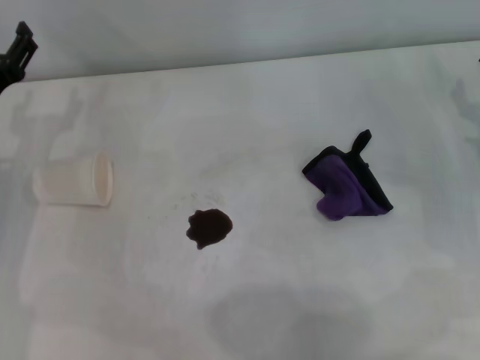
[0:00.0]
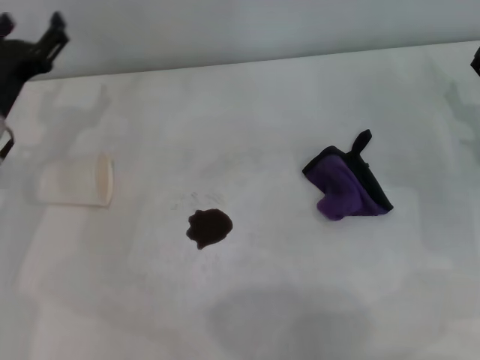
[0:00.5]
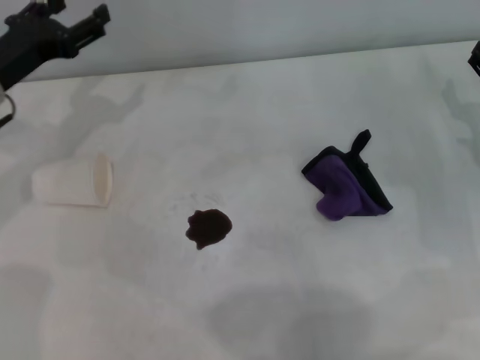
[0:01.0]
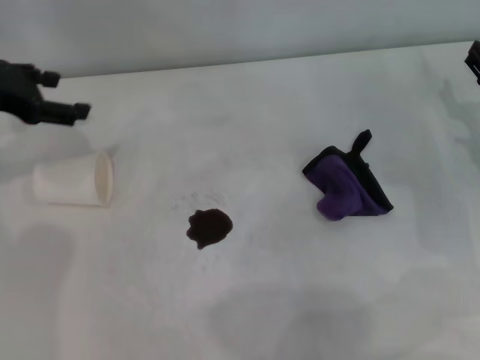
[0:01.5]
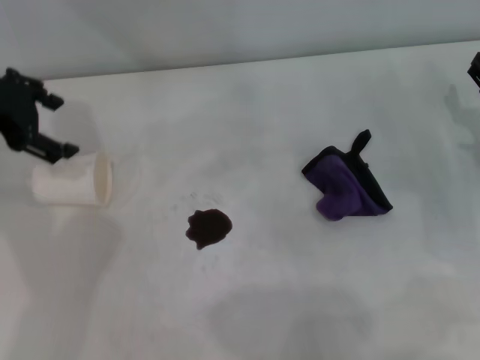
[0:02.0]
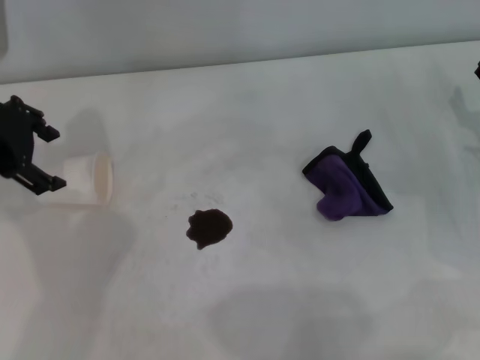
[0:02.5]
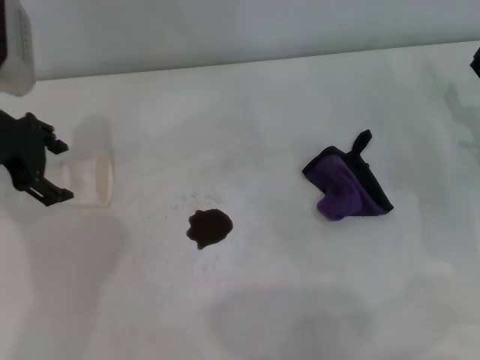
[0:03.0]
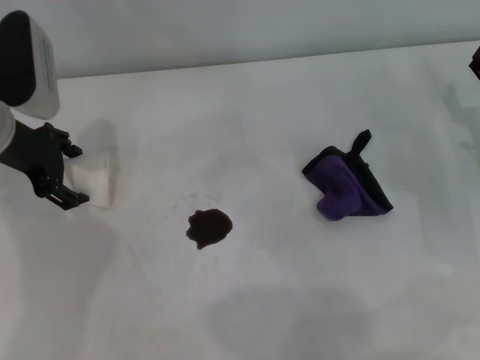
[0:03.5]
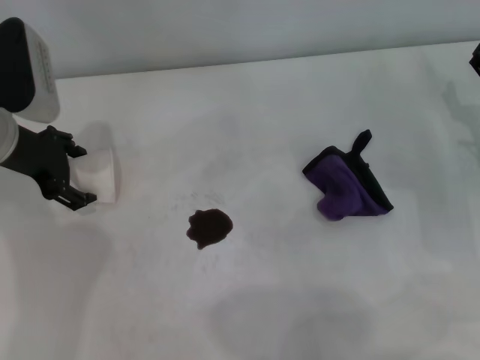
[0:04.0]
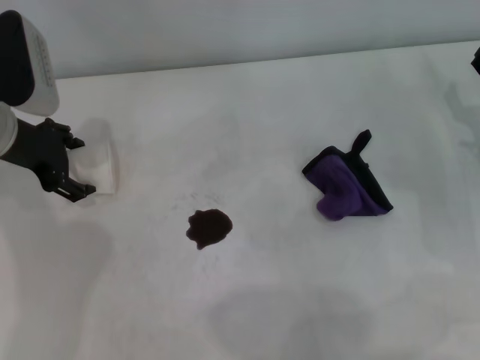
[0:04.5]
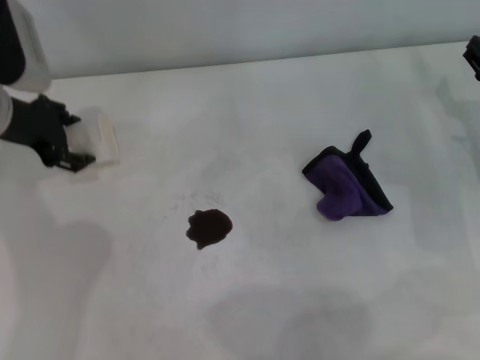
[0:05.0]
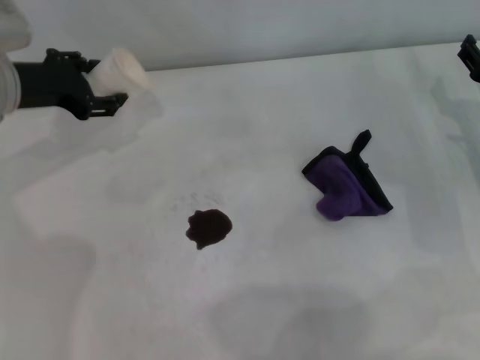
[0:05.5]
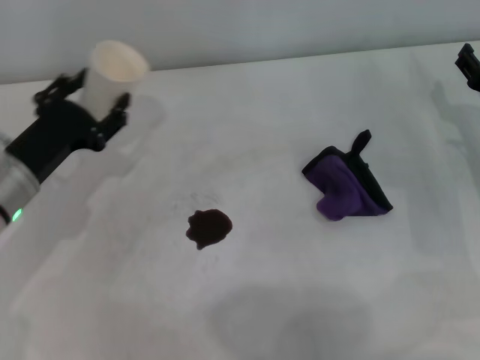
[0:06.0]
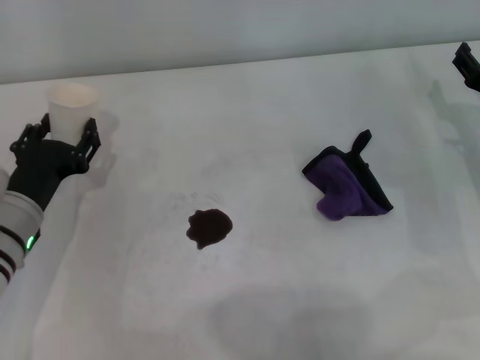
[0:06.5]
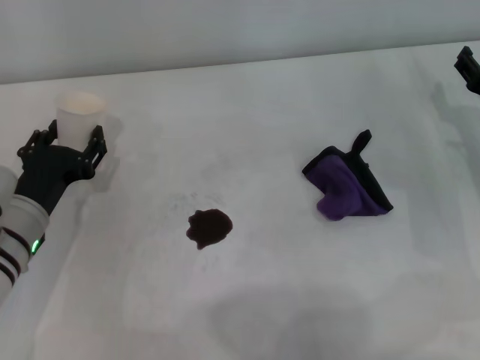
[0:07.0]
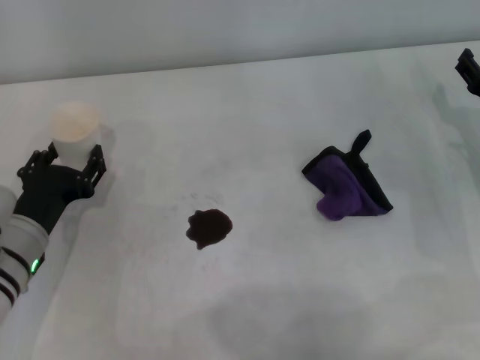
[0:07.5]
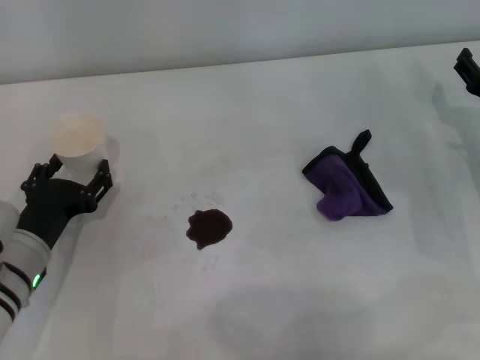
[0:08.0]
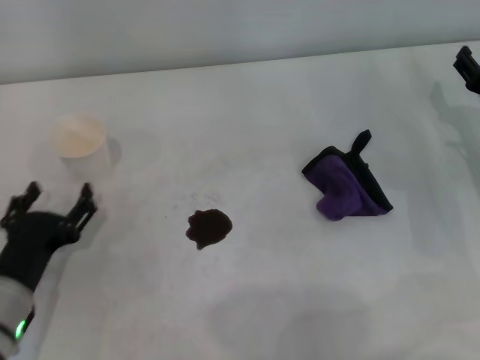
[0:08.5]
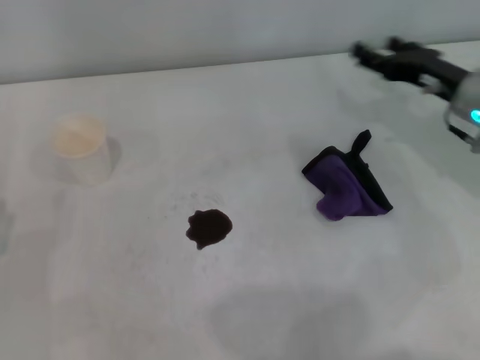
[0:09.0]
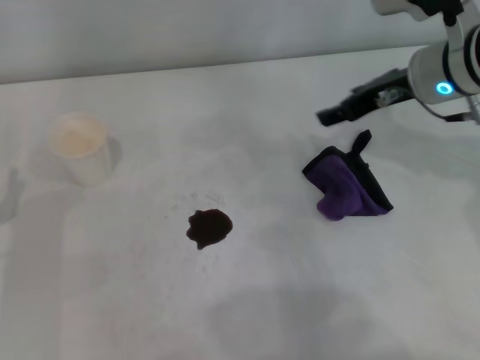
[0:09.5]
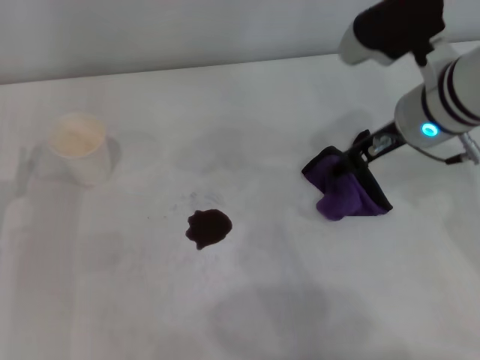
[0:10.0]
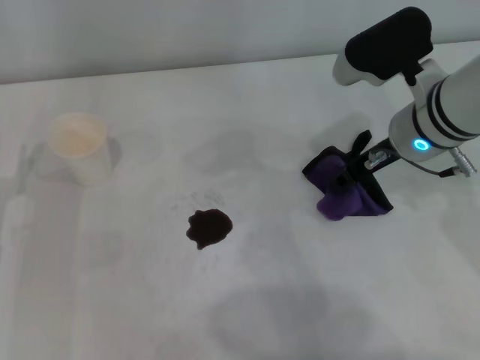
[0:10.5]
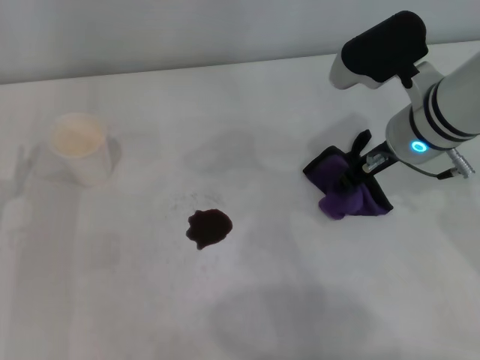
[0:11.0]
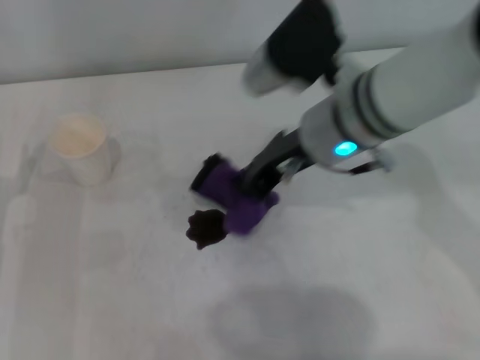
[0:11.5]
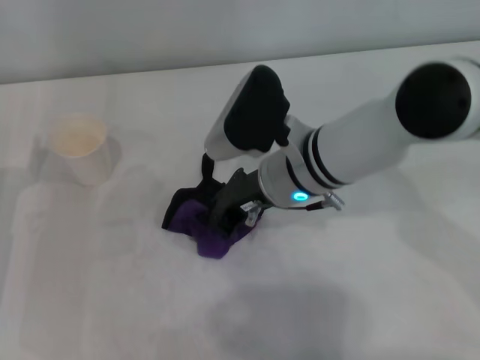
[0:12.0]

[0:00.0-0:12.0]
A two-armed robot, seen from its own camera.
Step, 0:00.0 to 0:03.5: Grasp the paper cup with the left gripper.
Step, 0:04.0 to 0:08.0: Stand the paper cup upright with the left gripper.
Step, 0:08.5 to 0:10.5: Grasp the rag with the right gripper.
0:00.0 to 0:02.0: The left gripper is displaced upward by some 15 cm.
0:02.0 to 0:04.0: The left gripper moves downward, roughly 10 cm.
0:04.0 to 0:06.0: The left gripper is displaced backward and downward by roughly 10 cm, and closes up.
0:06.0 to 0:08.0: The left gripper shifts approximately 10 cm downward and backward, and opens its fingers.
0:08.0 to 0:10.0: The left gripper moves to the left, about 5 cm, goes backward and returns, approximately 10 cm each way, and opens up; the right gripper shifts some 20 cm to the left and upward.
0:10.0 to 0:12.0: The right gripper shifts about 15 cm to the left and downward, and closes its fingers.

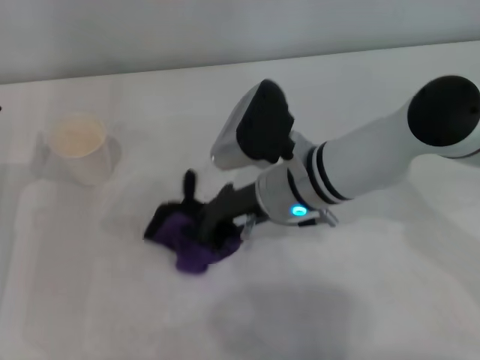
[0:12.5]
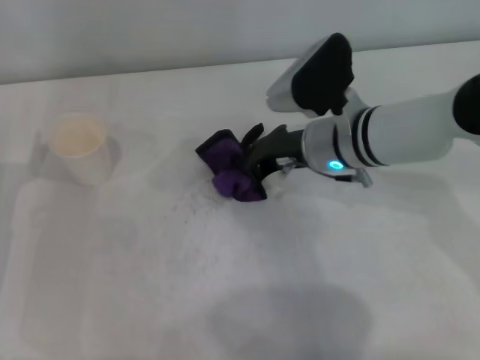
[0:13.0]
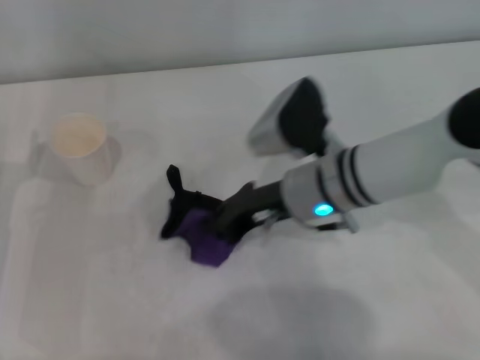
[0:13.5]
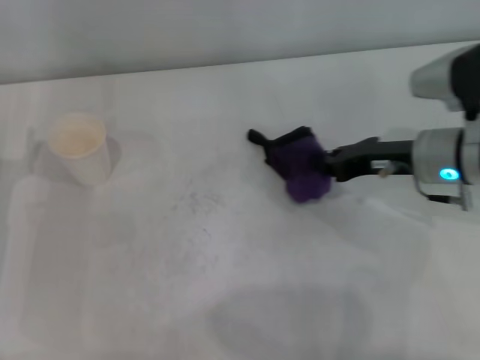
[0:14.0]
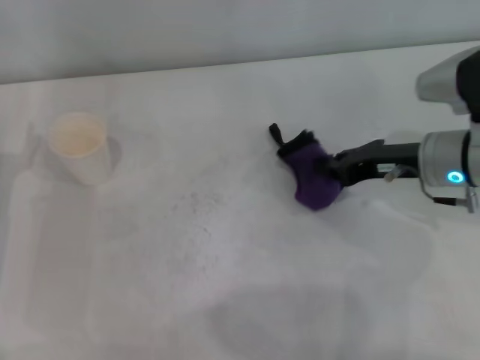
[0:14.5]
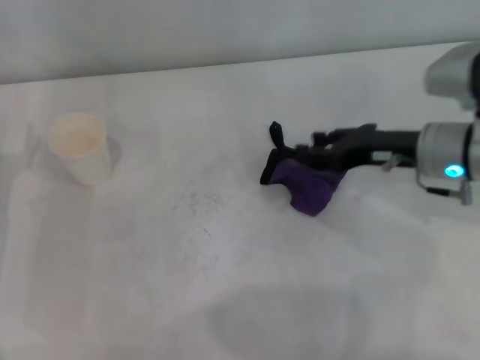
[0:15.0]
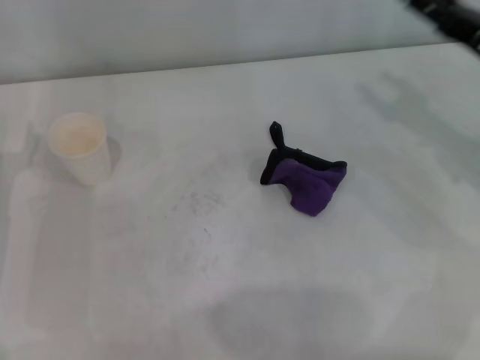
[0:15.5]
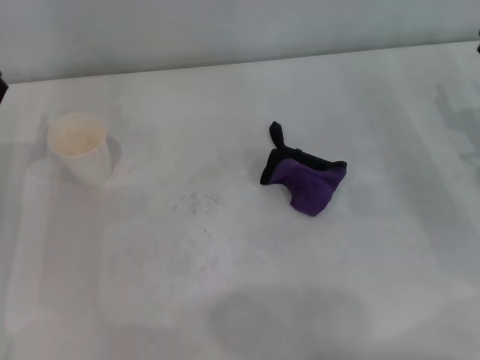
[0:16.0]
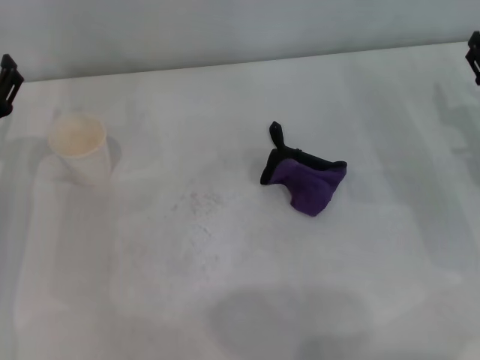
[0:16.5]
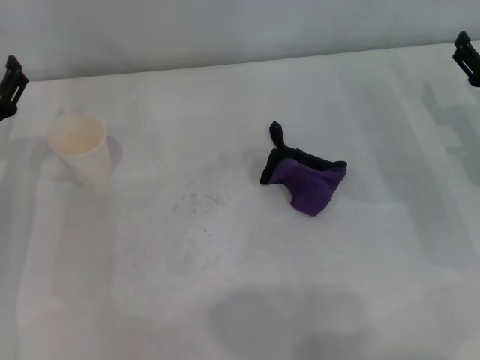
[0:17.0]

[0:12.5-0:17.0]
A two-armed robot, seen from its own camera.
Step, 0:14.0 to 0:14.5: Place the rag on the table with the right gripper.
0:12.5 to 0:14.5: The right gripper is displaced to the right by approximately 15 cm.
0:14.5 to 0:17.0: The right gripper goes some 10 cm to the right, and opens up.

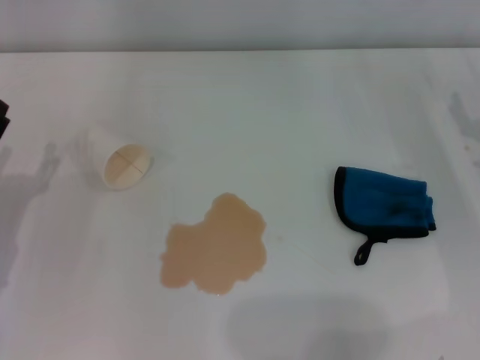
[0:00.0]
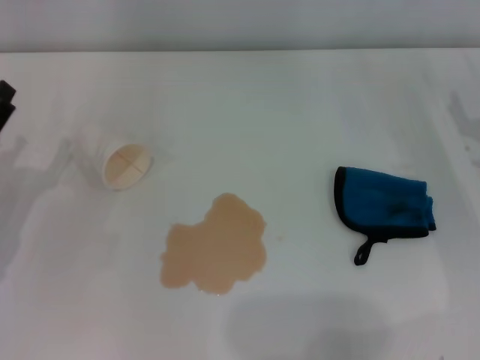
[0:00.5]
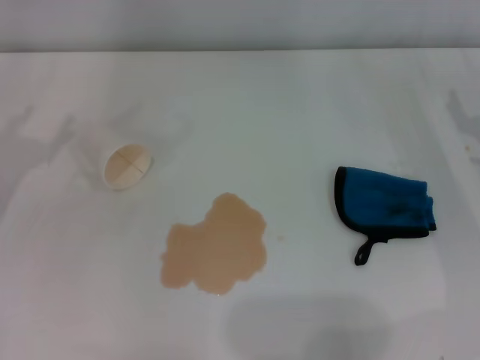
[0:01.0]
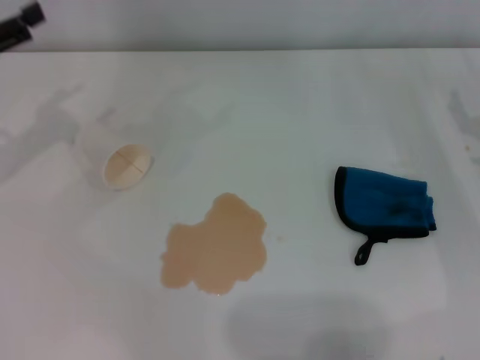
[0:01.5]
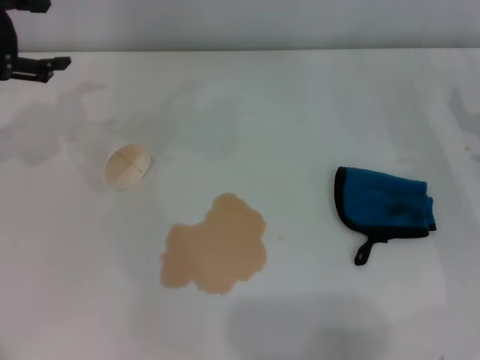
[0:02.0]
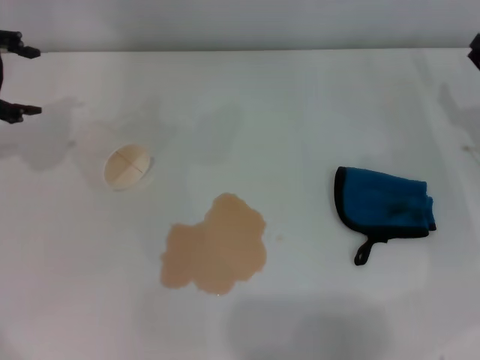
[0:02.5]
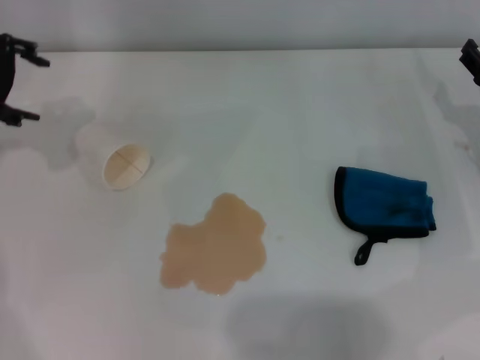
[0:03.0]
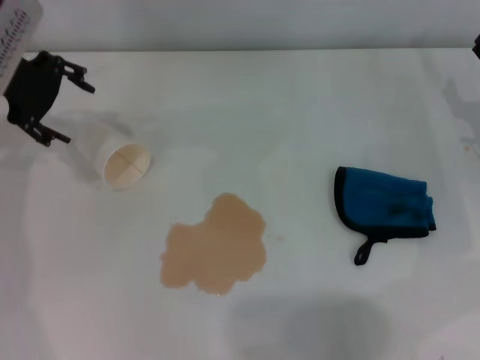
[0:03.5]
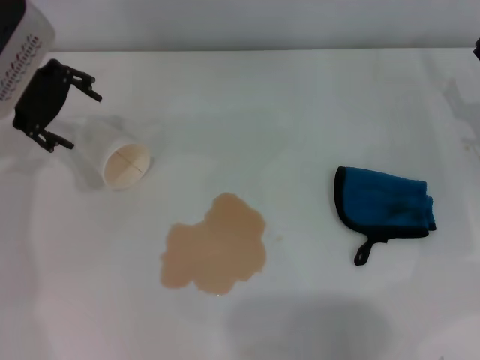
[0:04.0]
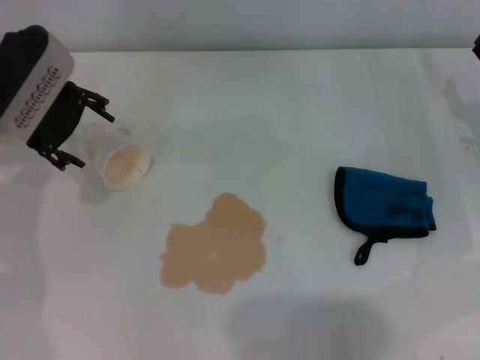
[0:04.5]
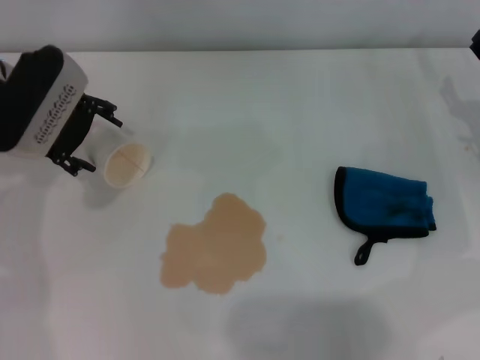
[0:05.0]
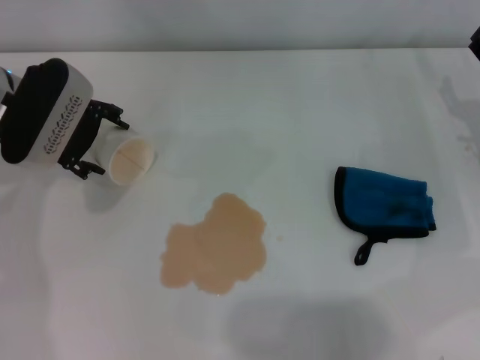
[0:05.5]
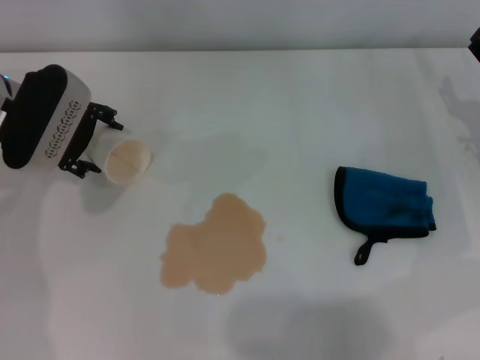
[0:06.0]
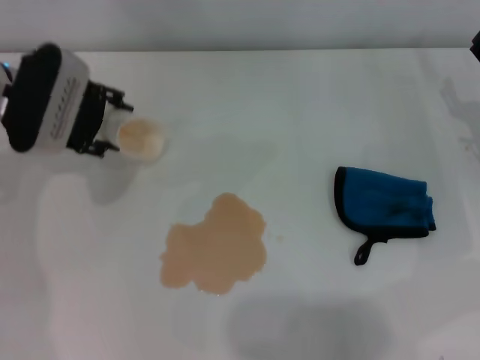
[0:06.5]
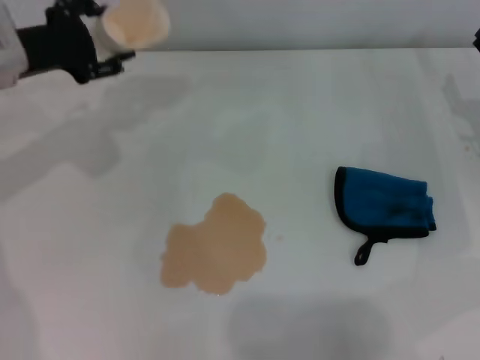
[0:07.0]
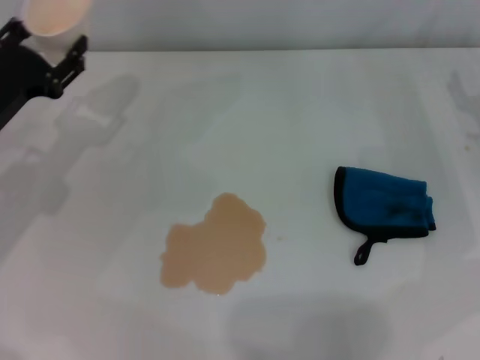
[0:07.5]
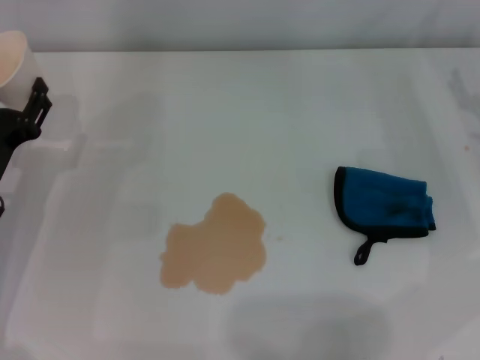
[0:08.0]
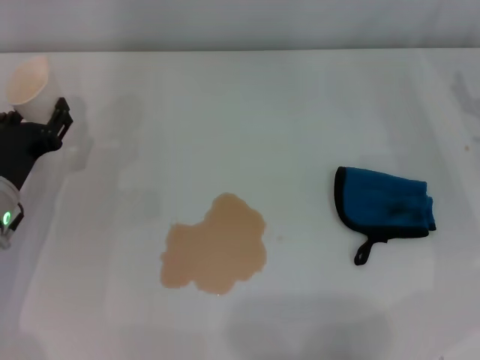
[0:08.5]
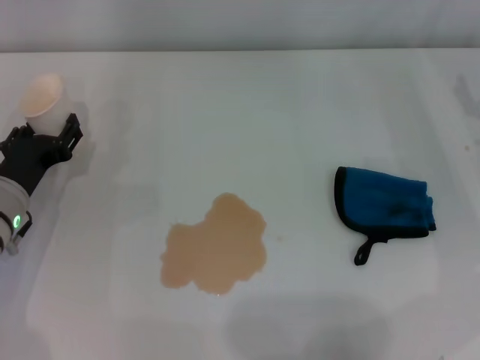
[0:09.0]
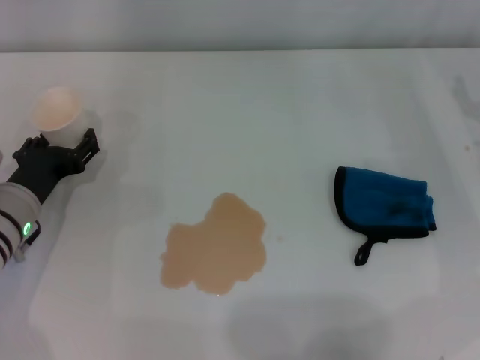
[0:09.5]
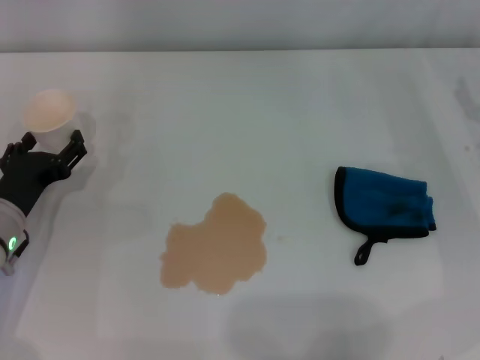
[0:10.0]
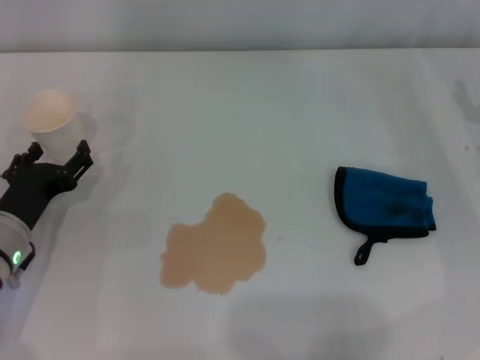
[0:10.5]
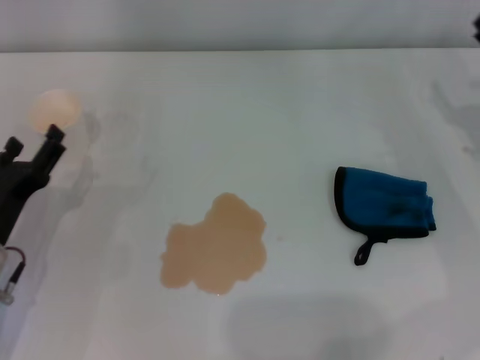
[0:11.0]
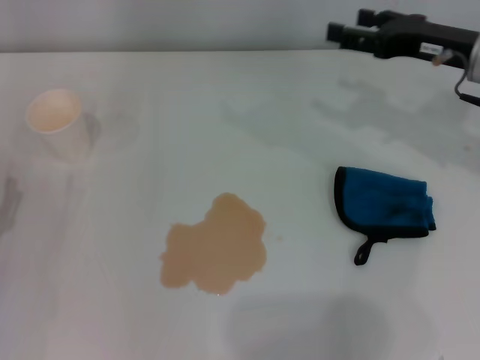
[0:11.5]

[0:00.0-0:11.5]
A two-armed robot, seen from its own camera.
Step, 0:00.0 to 0:06.0: Grasp the paper cup with the left gripper.
Step, 0:06.5 to 0:10.0: Stand the paper cup upright with the left gripper.
0:00.0 to 0:02.0: The left gripper moves upward and forward, approximately 25 cm.
0:02.0 to 0:04.0: The left gripper travels to the right by about 10 cm.
0:04.0 to 0:06.0: The left gripper is displaced downward by about 5 cm.
0:06.0 to 0:07.5: The left gripper is displaced backward by some 5 cm, and closes its fingers.
0:07.5 to 0:09.5: The left gripper heads downward, covering roughly 10 cm.
0:09.5 to 0:11.5: The right gripper shifts some 10 cm to the left, upward and forward. The left gripper shifts approximately 10 cm backward and to the left, and opens up.